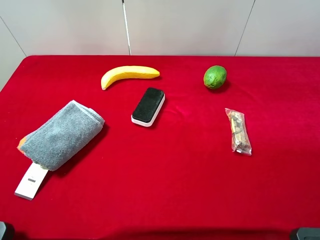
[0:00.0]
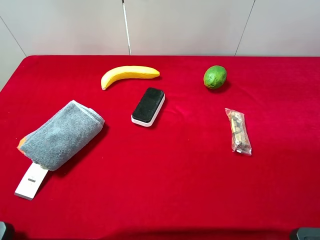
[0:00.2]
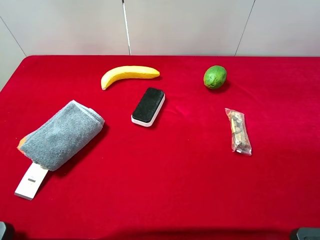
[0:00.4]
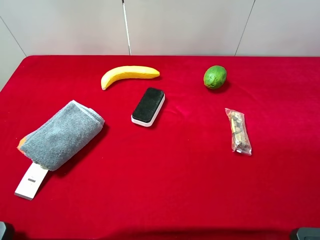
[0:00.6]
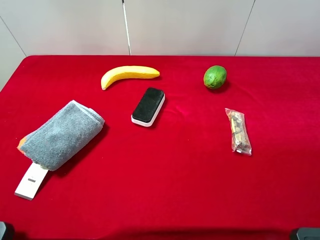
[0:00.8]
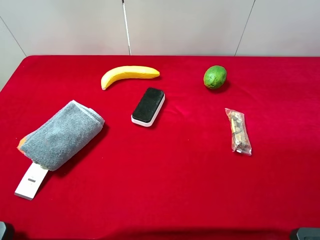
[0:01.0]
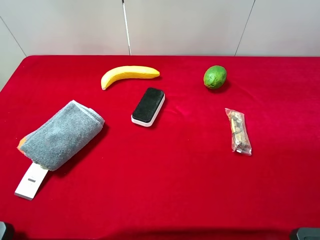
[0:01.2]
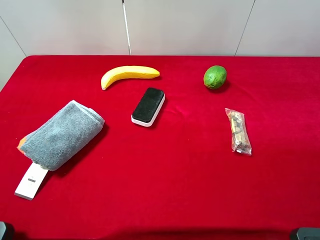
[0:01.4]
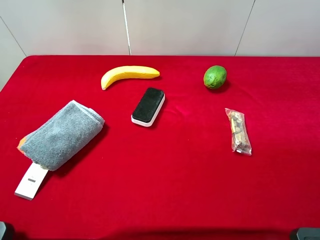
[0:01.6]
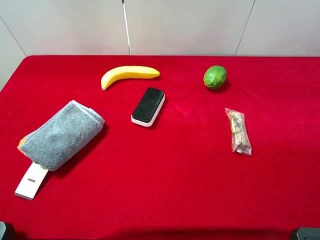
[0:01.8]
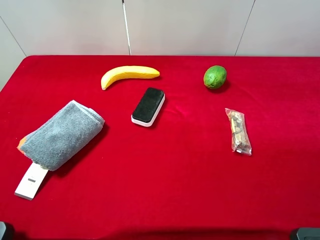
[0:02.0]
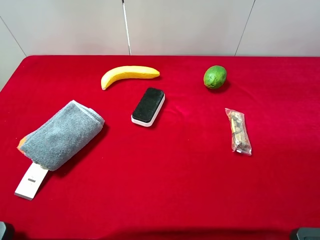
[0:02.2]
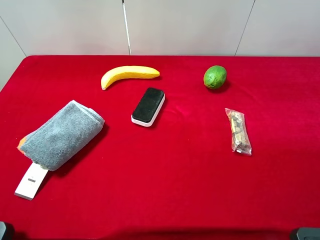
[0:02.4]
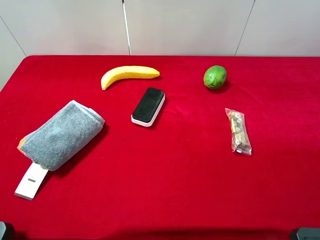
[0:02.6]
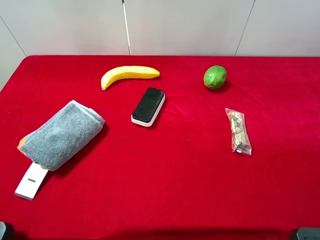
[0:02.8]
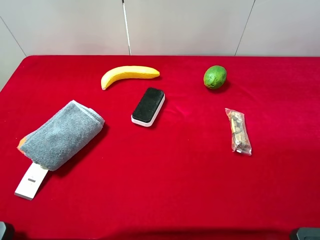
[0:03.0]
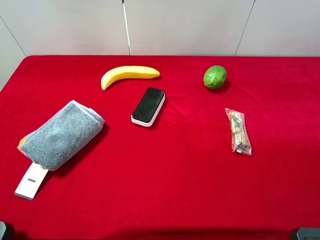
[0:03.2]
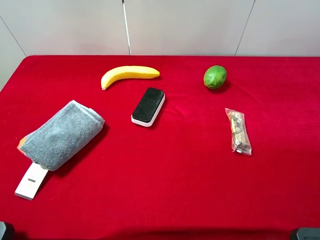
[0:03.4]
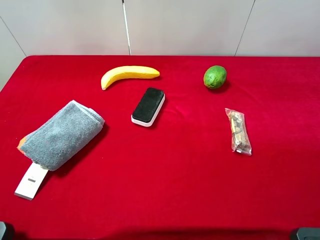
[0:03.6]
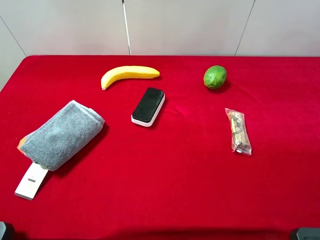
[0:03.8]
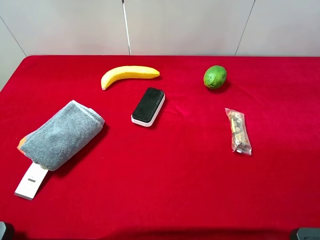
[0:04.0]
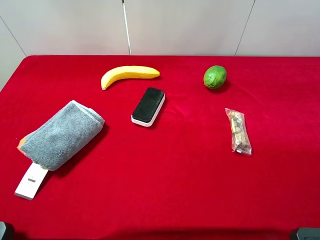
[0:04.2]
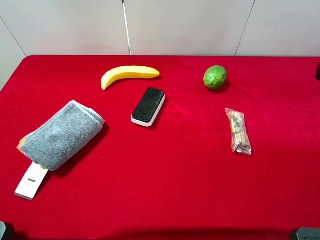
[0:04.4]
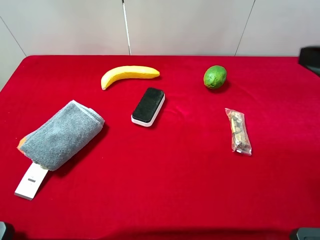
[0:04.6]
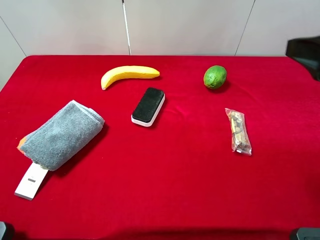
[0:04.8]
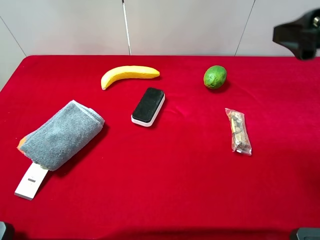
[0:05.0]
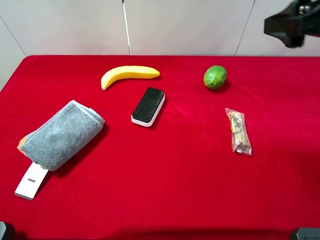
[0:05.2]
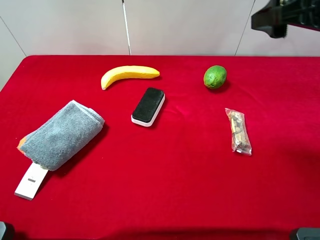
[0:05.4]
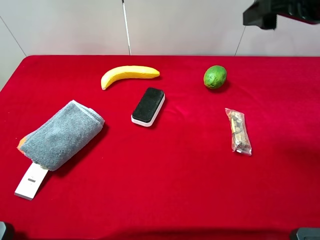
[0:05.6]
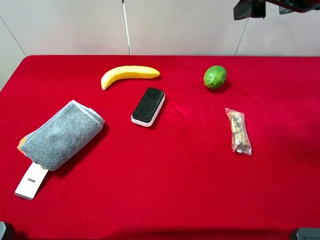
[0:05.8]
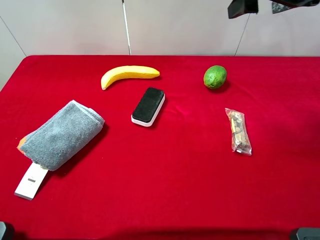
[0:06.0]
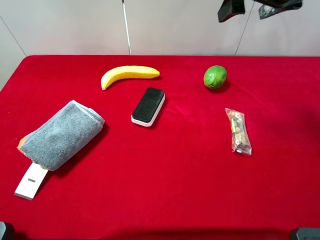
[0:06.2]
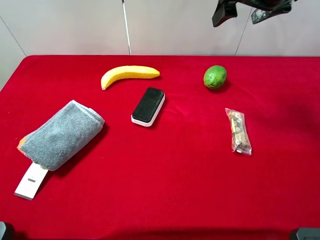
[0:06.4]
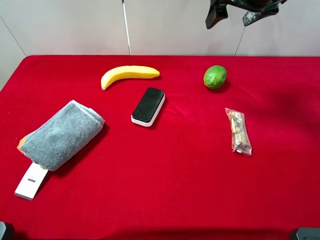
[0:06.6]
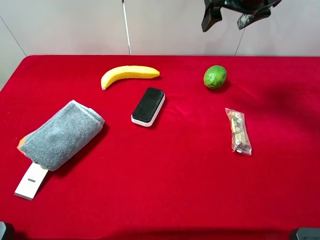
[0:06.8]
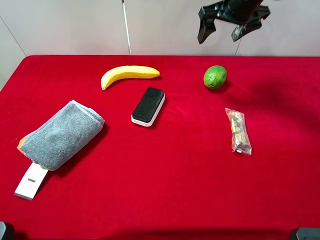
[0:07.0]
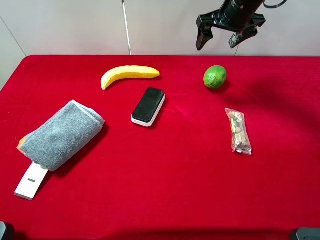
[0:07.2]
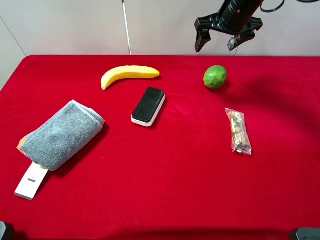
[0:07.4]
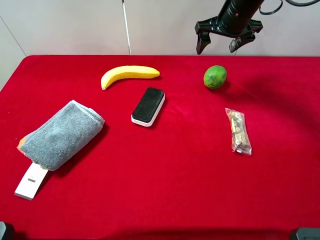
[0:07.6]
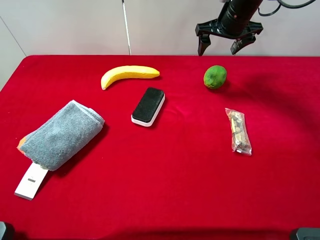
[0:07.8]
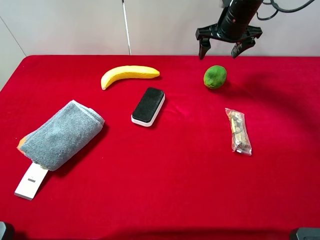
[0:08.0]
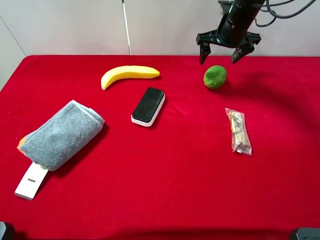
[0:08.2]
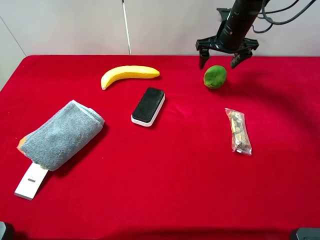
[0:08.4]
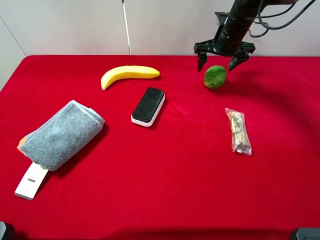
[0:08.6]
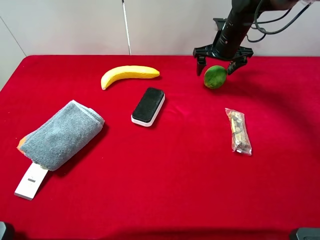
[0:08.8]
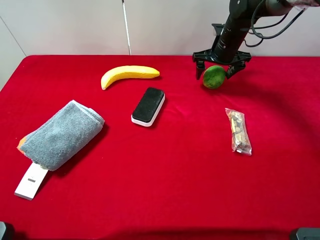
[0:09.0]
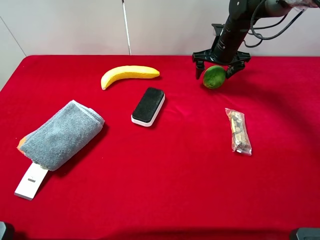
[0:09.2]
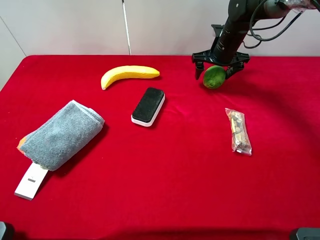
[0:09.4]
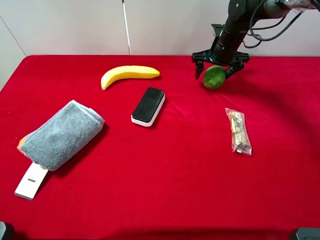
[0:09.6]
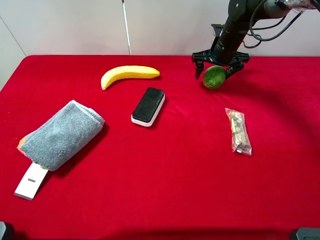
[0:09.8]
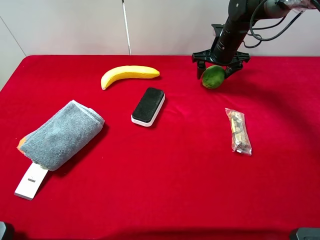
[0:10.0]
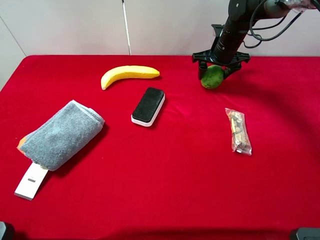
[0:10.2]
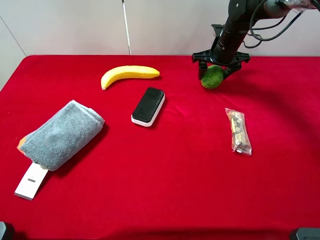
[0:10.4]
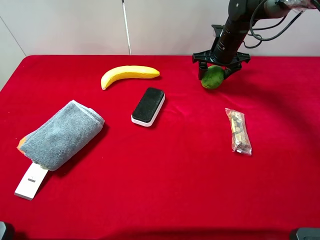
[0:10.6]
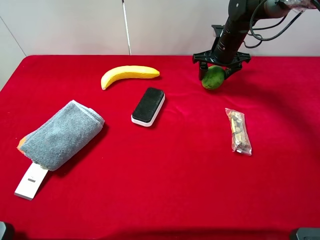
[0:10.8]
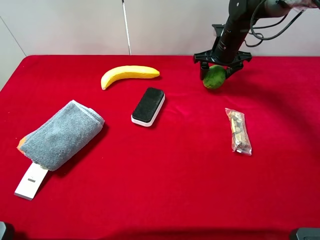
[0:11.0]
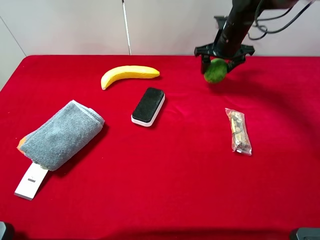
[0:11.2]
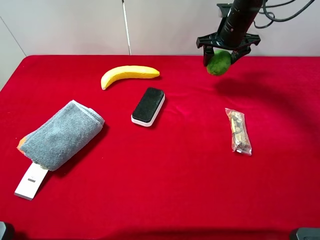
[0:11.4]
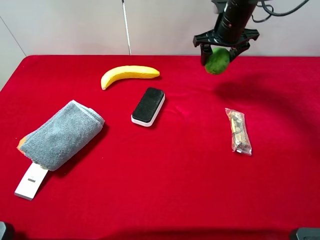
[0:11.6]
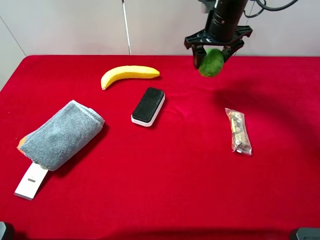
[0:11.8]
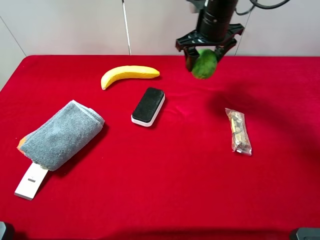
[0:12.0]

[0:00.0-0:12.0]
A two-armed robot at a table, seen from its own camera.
Task of the whole recording: the gripper move the object.
Step, 0:00.0 to 0:10.2: Grasp the green lemon with the right gripper.
0:00.0 to 0:03.0: Neither gripper changes place.
0:04.4 to 0:06.0: The right gripper shifts approximately 20 cm forward.
0:06.0 to 0:07.6: The right gripper moves forward and downward, about 15 cm.
0:07.6 to 0:09.0: The right gripper is displaced downward by about 10 cm.
0:09.0 to 0:10.4: The right gripper closes its fingers.
0:10.4 to 0:12.0: The right gripper heads upward, to the left and backward, covering approximately 15 cm.

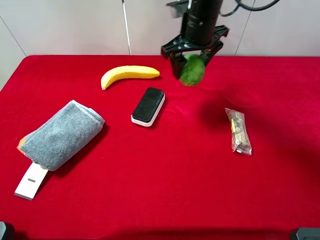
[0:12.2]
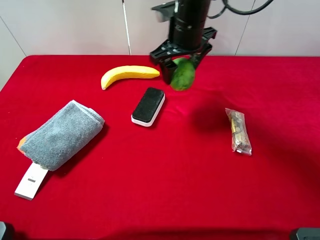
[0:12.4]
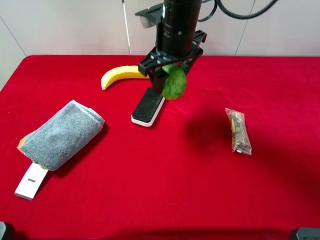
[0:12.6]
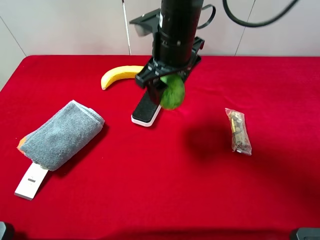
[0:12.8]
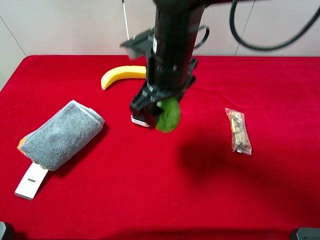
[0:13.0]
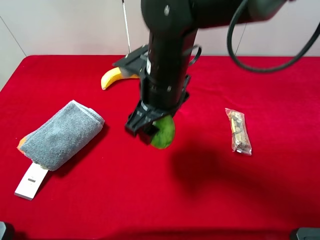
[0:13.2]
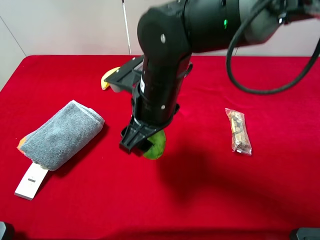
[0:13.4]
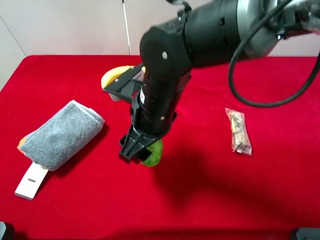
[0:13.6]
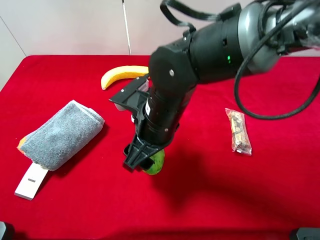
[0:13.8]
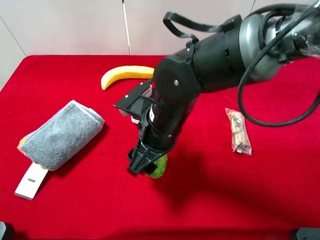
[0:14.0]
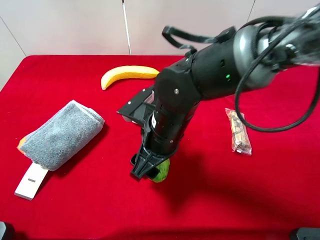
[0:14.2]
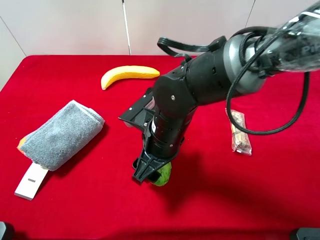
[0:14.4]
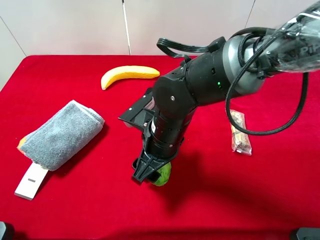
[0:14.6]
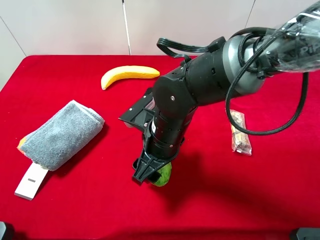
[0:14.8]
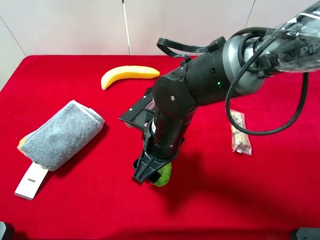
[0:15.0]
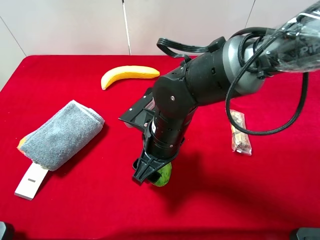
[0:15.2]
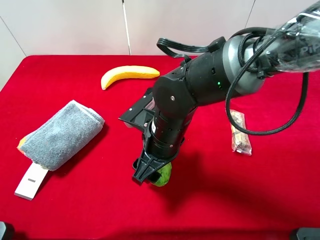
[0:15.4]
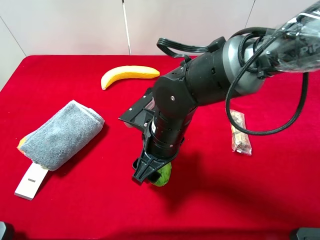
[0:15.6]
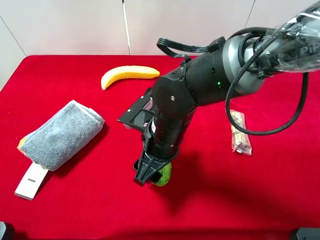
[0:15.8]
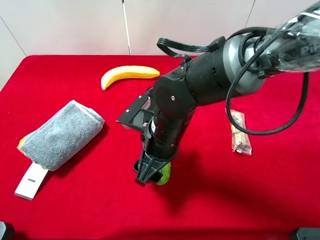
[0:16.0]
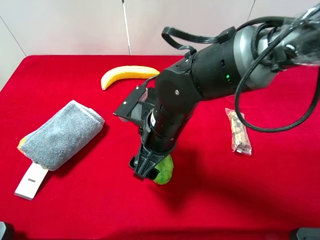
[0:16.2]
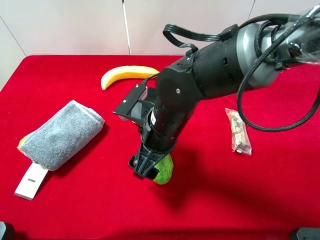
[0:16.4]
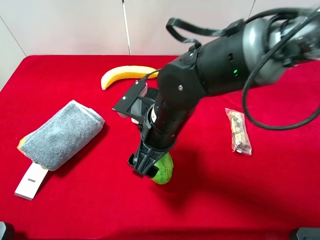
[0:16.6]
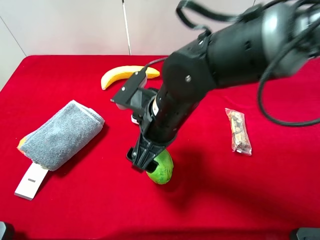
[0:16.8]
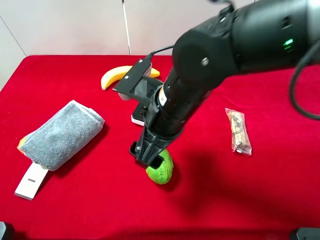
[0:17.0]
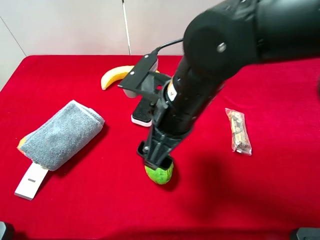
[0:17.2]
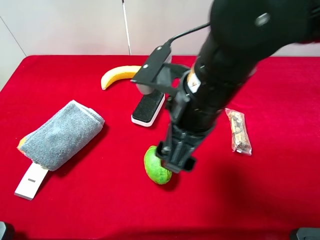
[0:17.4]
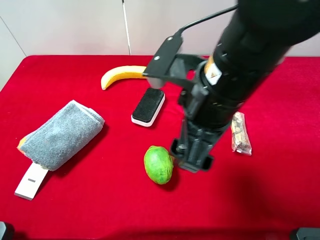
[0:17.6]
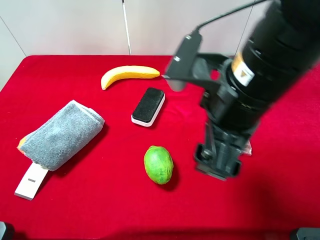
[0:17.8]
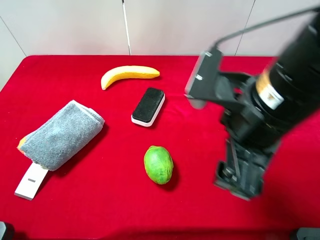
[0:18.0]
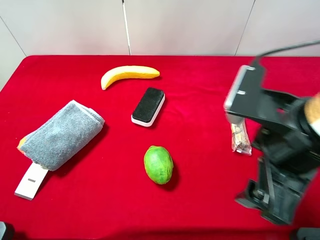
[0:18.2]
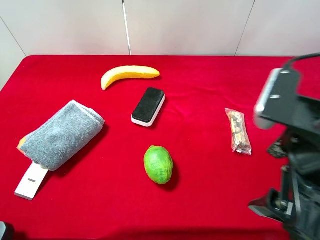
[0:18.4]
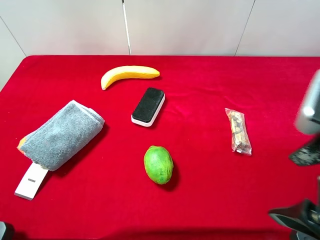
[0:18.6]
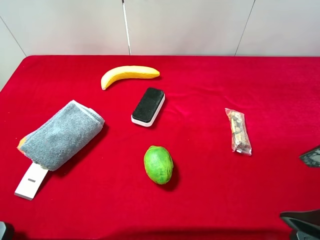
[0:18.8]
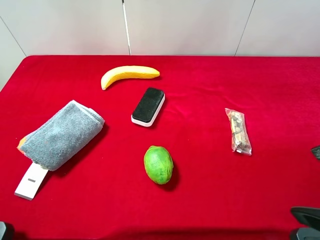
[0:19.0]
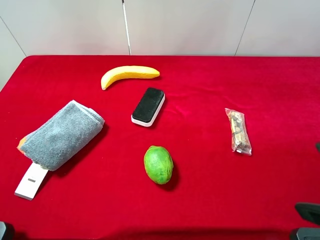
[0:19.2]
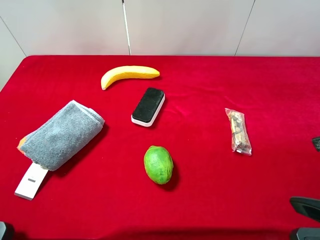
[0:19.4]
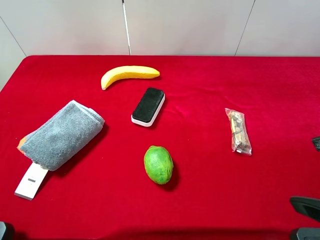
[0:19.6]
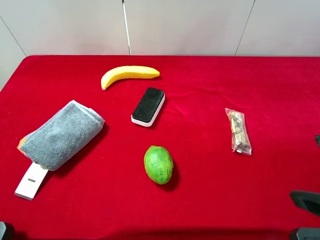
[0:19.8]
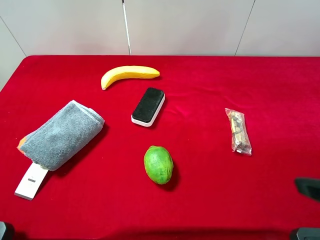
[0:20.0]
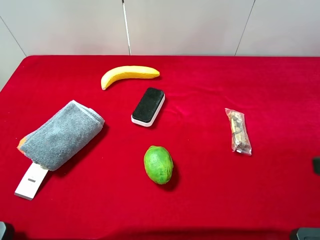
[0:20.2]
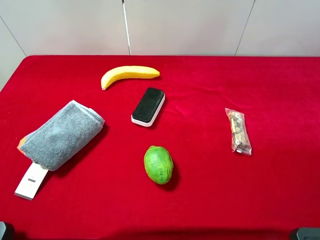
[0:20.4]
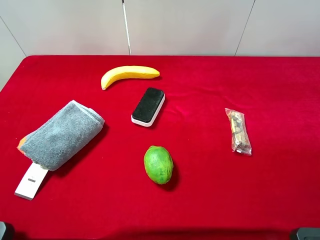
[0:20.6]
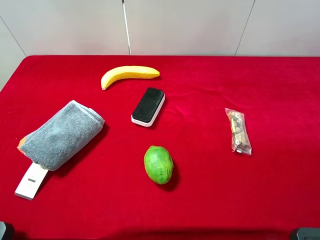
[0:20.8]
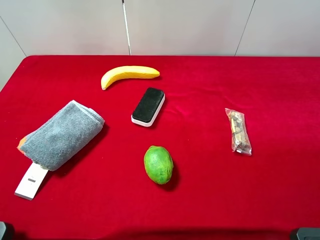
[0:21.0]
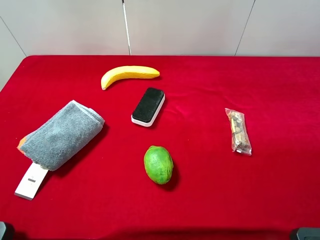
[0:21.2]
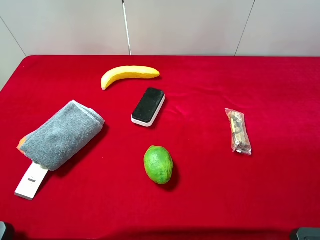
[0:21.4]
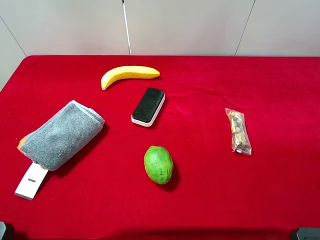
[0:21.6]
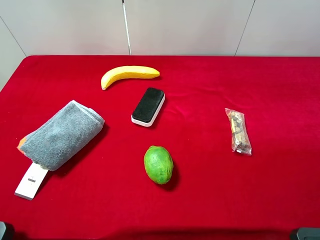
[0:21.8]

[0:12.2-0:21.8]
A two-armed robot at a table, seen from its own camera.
Task of the whole recording: the gripper move the object.
Step, 0:12.2 to 0:17.4: Place the green lemon on the table with the right gripper.
0:12.2 to 0:13.8: The right gripper goes about 20 cm backward and downward.
0:13.8 to 0:15.4: There are only small adjustments of the grippers.
0:15.4 to 0:17.0: The right gripper heads upward, covering roughly 10 cm, and opens up.
0:17.0 to 0:18.6: The right gripper goes some 25 cm to the right and backward.
0:18.6 to 0:20.2: The right gripper heads to the right, covering about 5 cm.

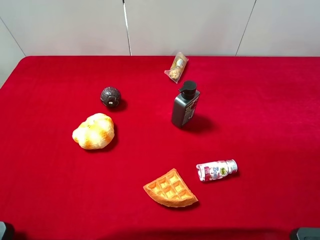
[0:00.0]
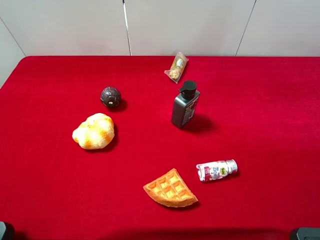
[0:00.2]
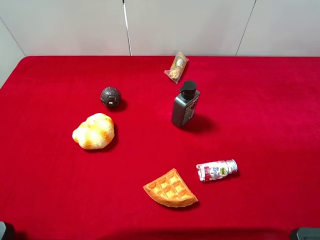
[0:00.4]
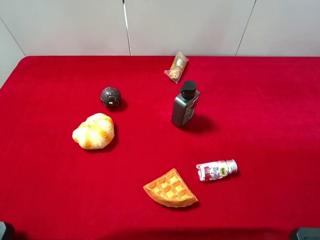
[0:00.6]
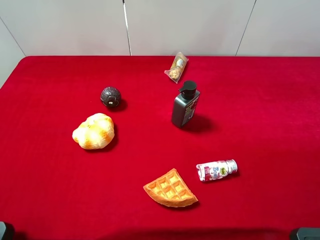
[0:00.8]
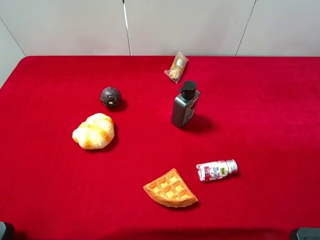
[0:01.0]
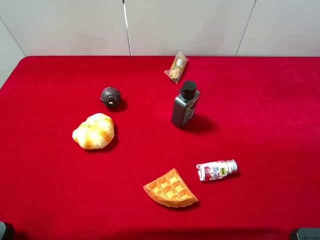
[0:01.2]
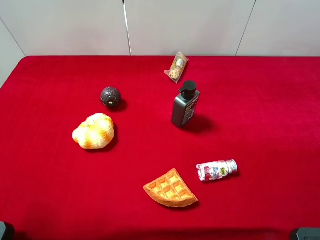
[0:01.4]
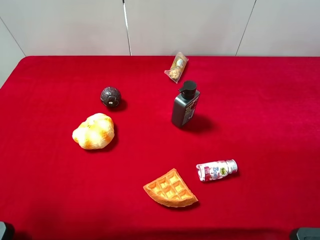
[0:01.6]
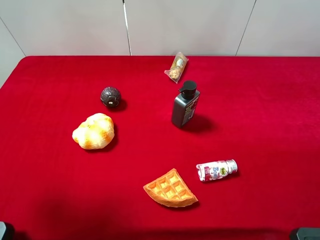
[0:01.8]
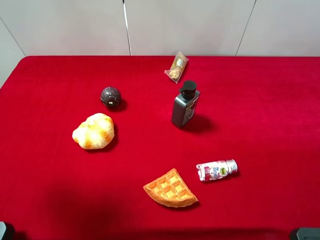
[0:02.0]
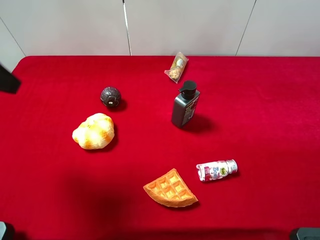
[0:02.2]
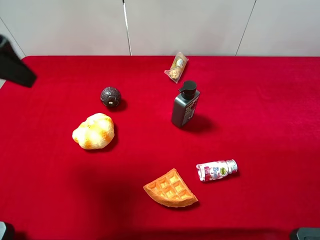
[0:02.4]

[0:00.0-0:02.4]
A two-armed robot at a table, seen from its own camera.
Task of the whole recording: the gripper move the object.
0:01.2 to 0:02.4: The left gripper goes about 15 cm forward.
